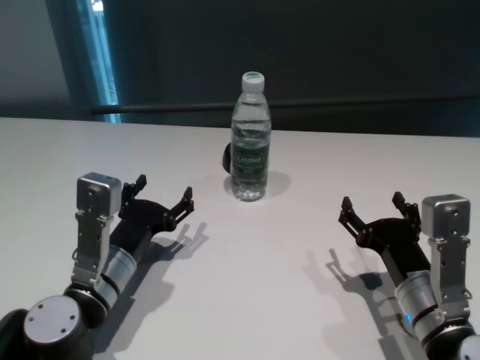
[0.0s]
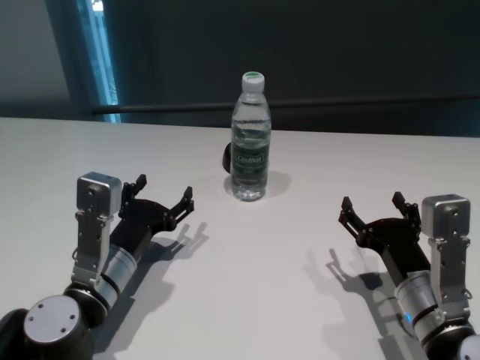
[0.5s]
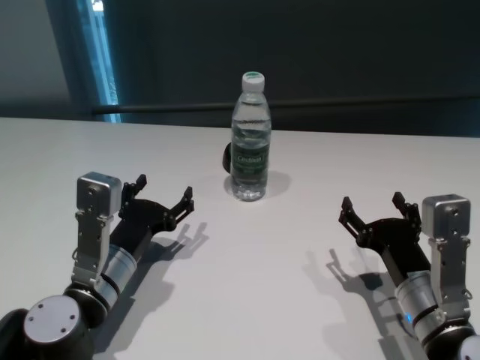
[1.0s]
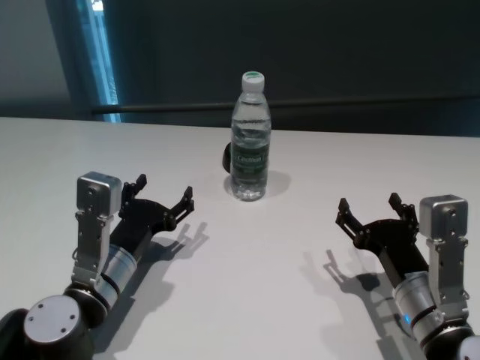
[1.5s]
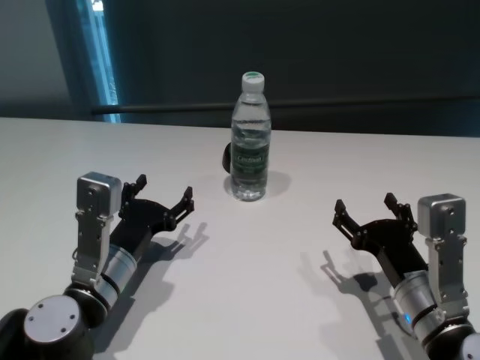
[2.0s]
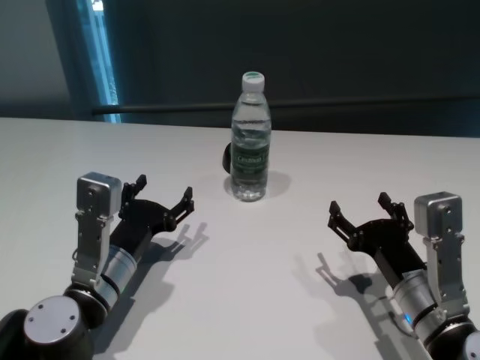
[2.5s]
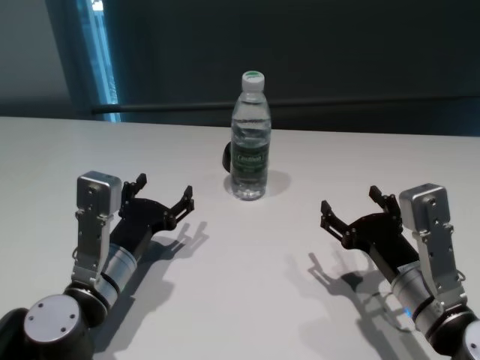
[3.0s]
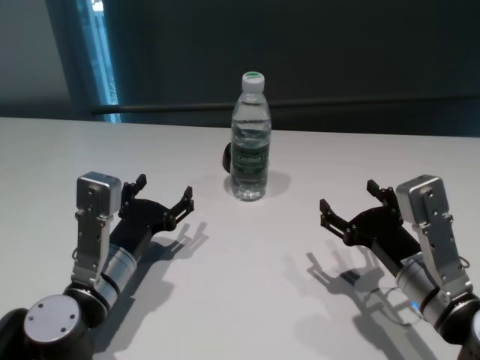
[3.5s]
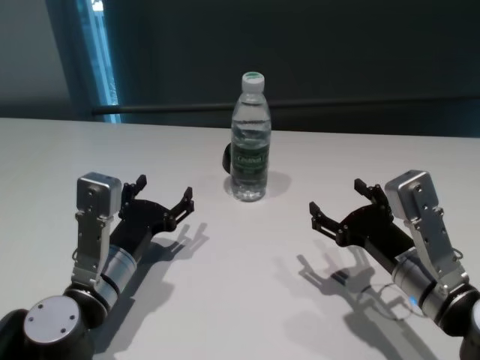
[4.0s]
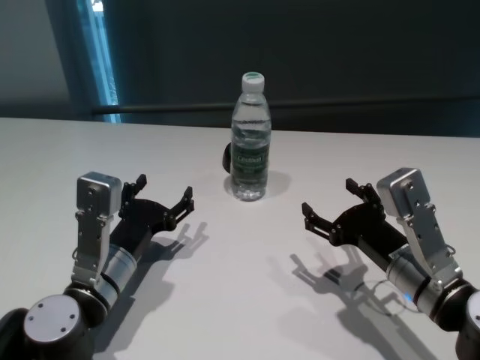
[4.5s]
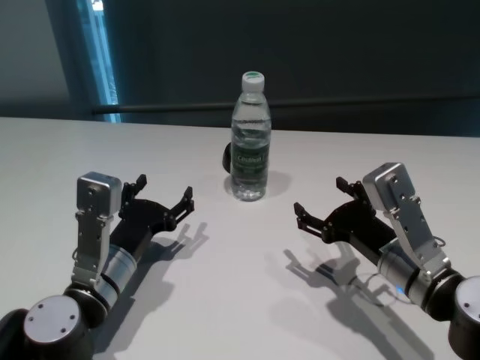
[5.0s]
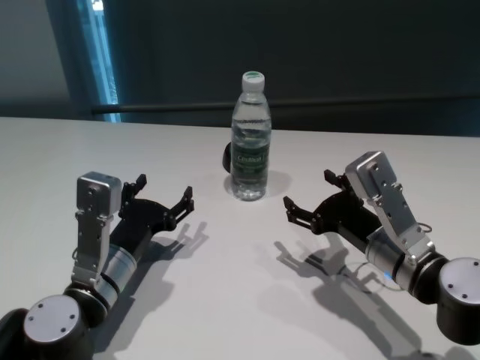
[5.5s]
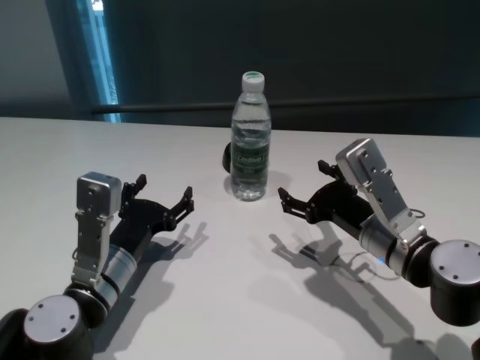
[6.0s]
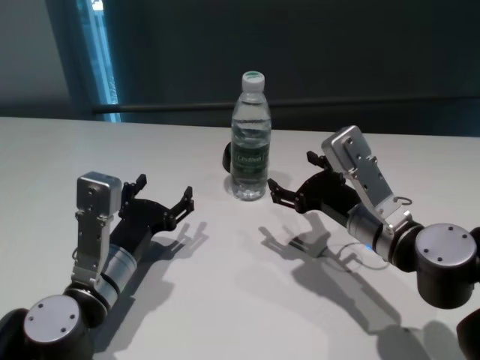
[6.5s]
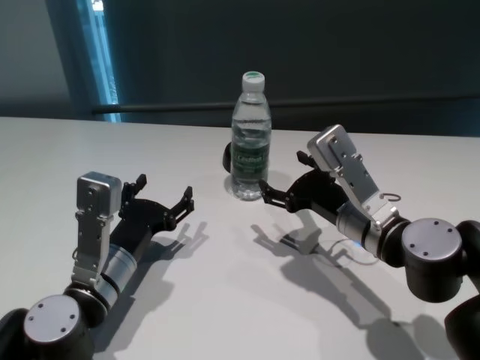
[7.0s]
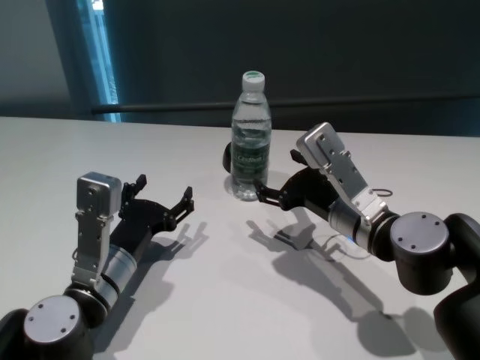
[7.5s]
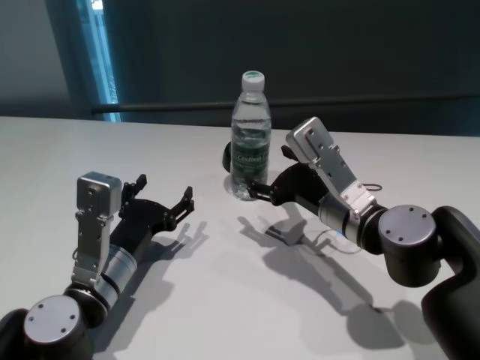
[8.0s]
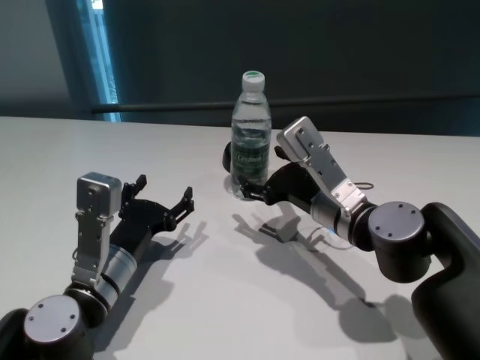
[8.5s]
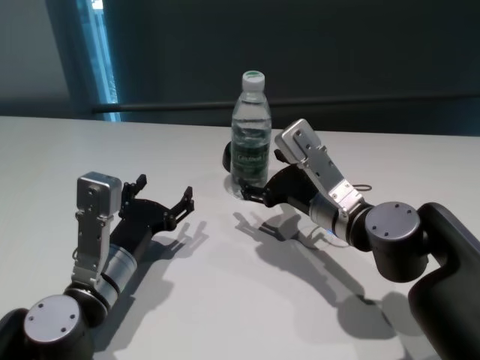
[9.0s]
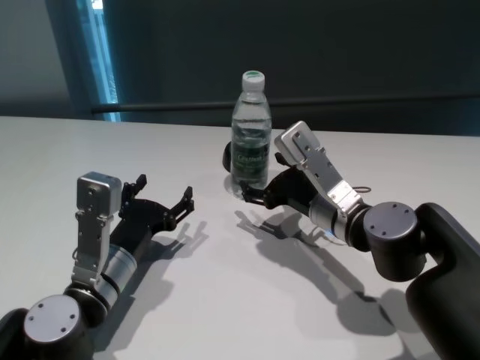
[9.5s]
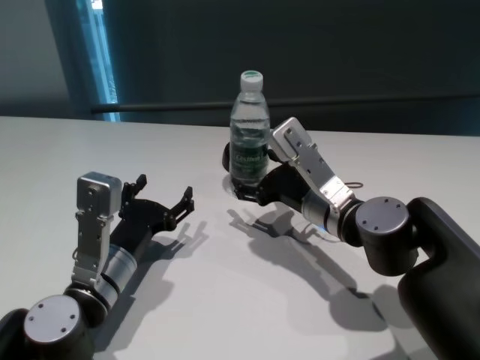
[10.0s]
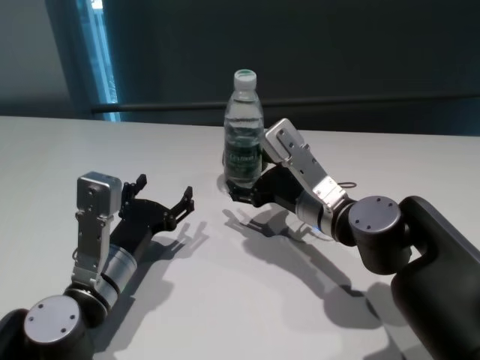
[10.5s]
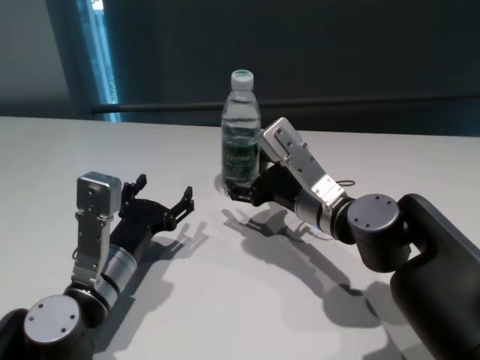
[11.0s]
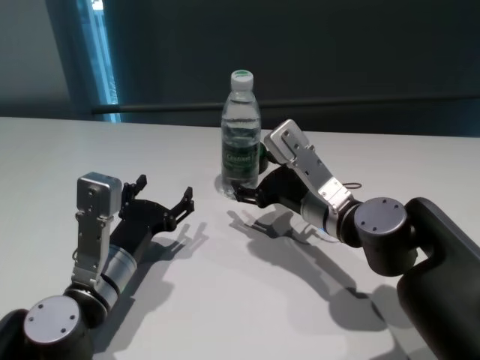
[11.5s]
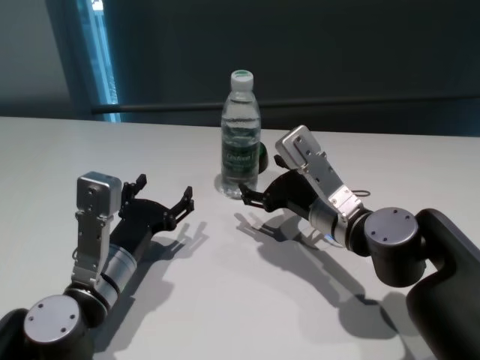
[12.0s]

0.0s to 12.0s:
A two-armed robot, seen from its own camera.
Task of the whole recording: return to a safe position after touching an obstacle with your arm on the white table.
Step, 0.0s to 11.5s: Touch the bottle with right gripper.
